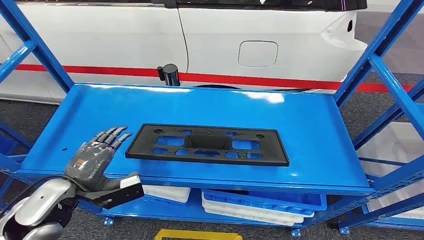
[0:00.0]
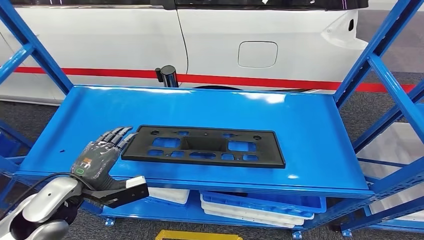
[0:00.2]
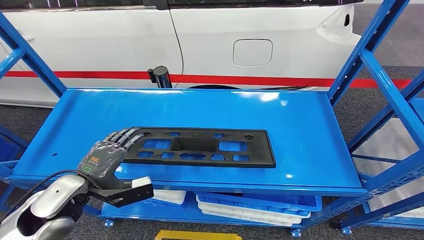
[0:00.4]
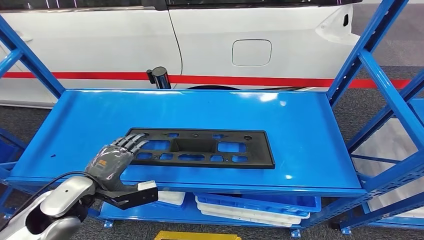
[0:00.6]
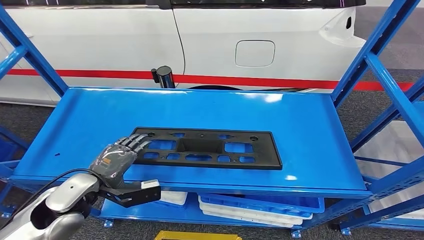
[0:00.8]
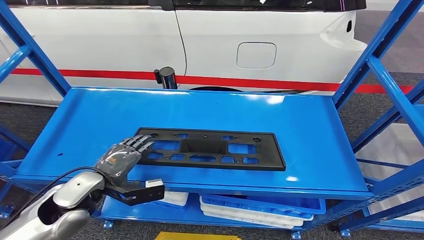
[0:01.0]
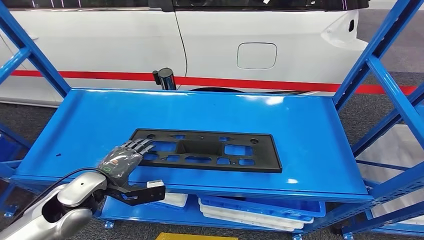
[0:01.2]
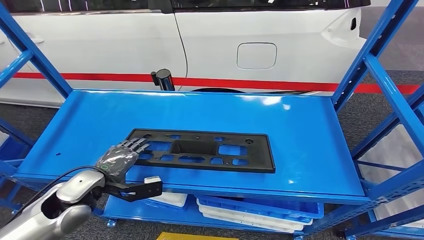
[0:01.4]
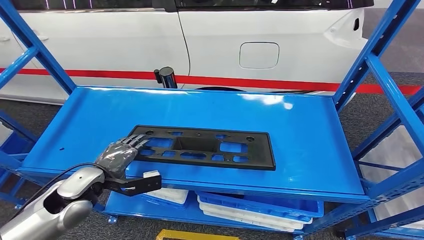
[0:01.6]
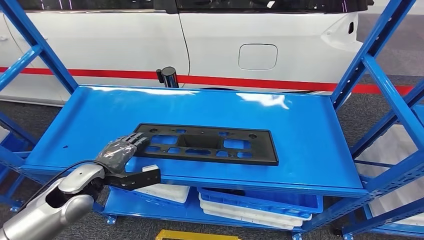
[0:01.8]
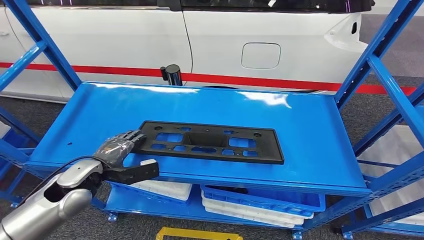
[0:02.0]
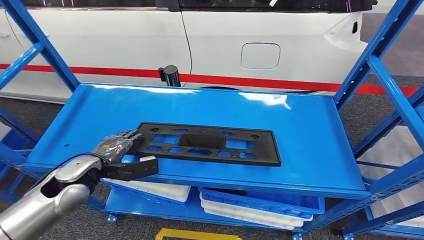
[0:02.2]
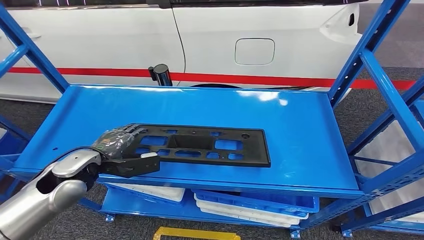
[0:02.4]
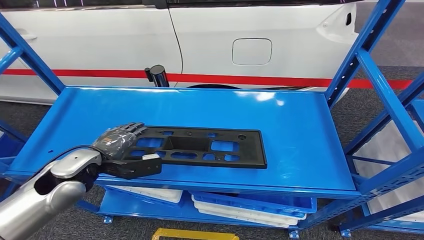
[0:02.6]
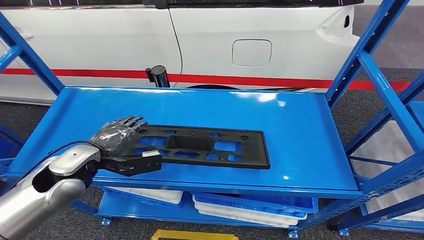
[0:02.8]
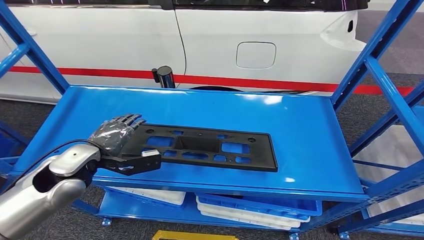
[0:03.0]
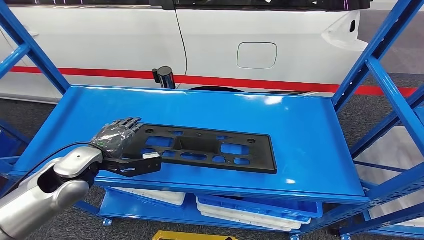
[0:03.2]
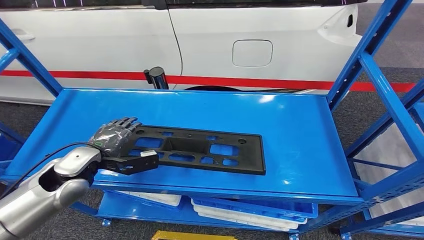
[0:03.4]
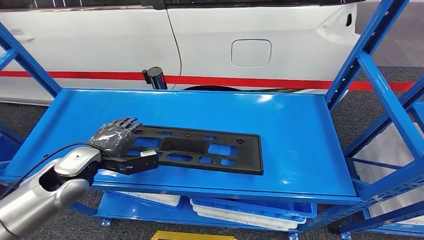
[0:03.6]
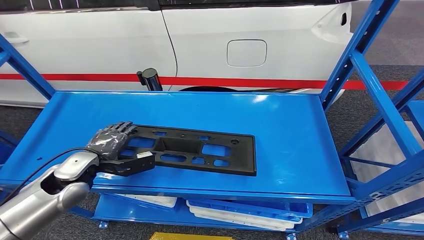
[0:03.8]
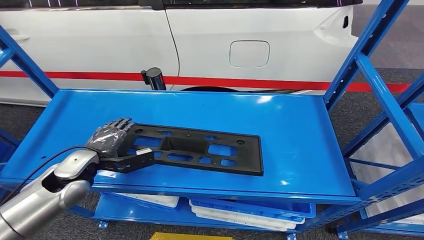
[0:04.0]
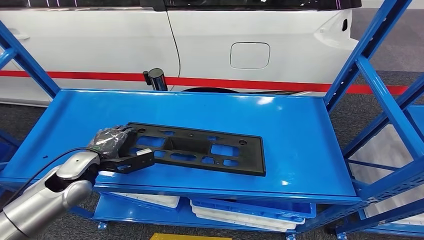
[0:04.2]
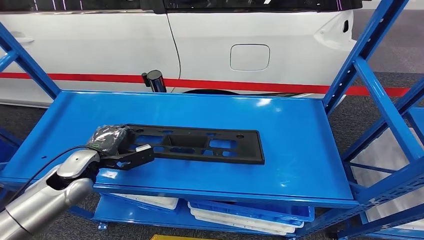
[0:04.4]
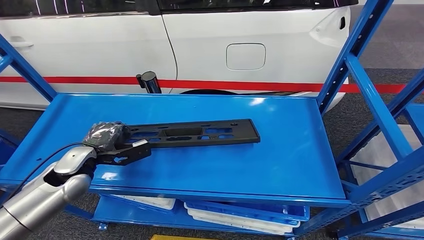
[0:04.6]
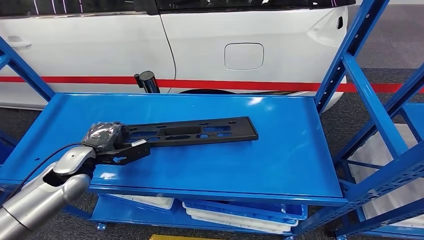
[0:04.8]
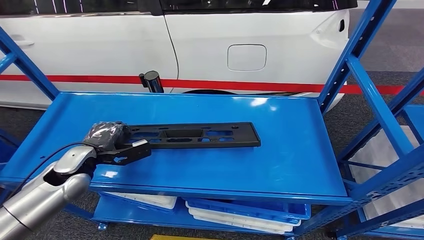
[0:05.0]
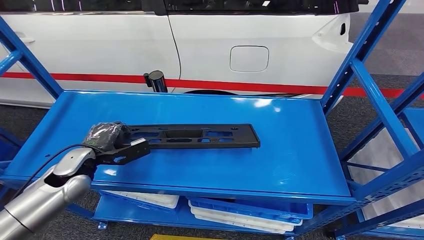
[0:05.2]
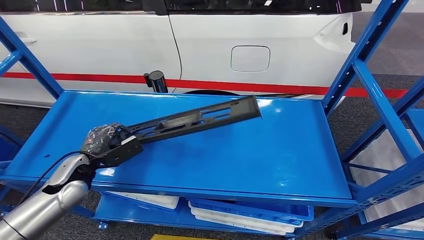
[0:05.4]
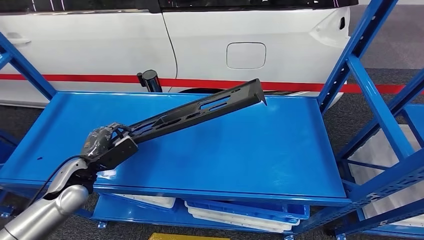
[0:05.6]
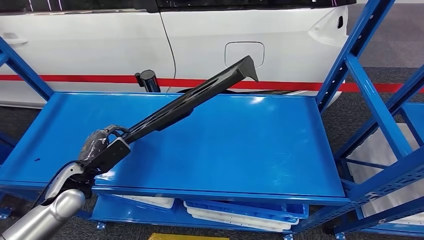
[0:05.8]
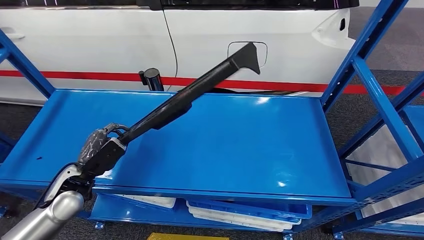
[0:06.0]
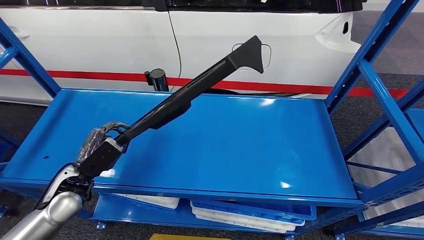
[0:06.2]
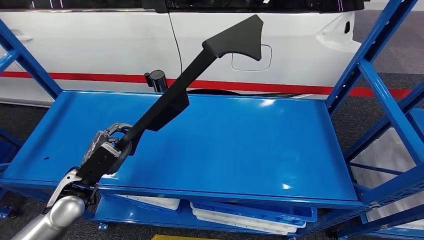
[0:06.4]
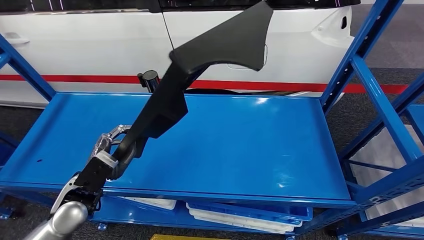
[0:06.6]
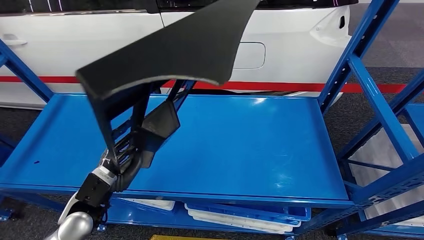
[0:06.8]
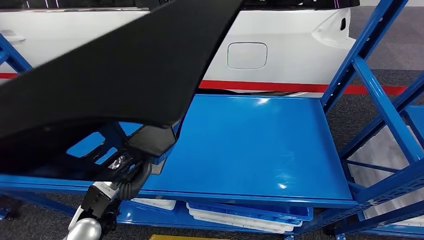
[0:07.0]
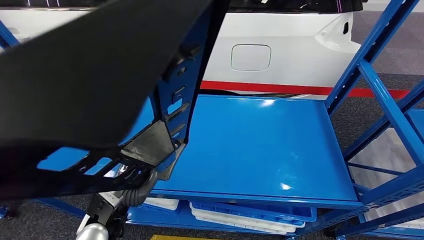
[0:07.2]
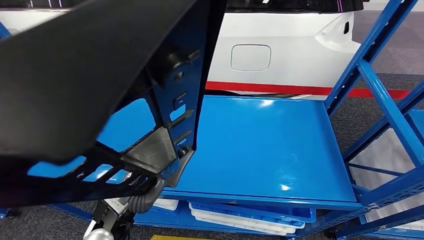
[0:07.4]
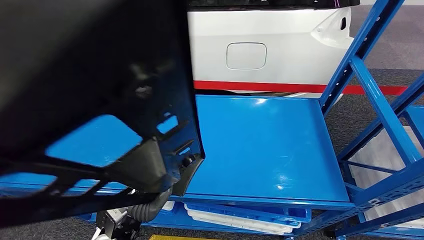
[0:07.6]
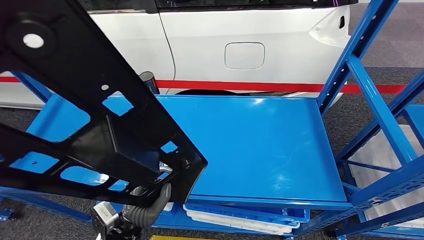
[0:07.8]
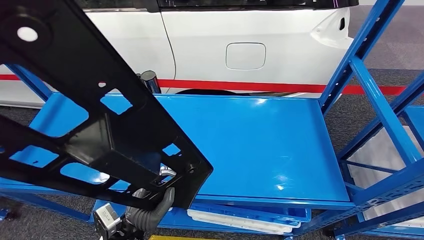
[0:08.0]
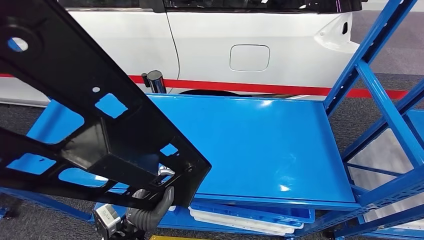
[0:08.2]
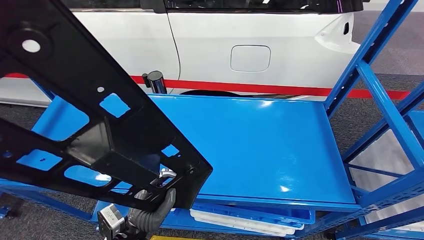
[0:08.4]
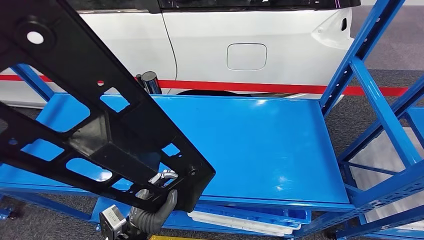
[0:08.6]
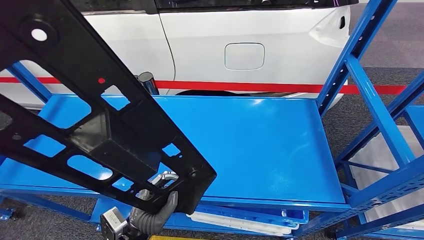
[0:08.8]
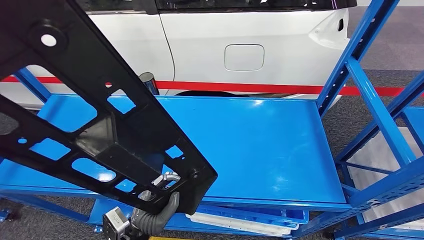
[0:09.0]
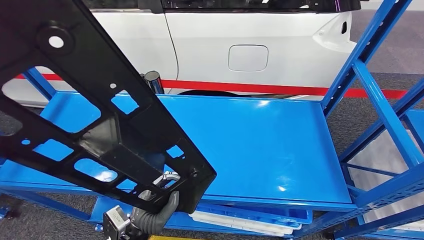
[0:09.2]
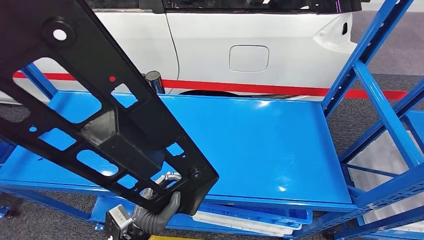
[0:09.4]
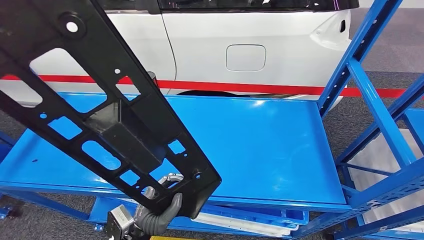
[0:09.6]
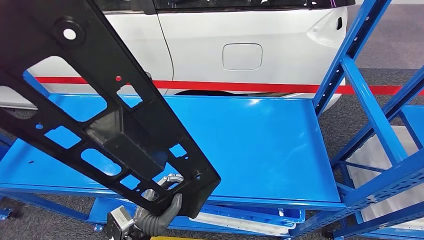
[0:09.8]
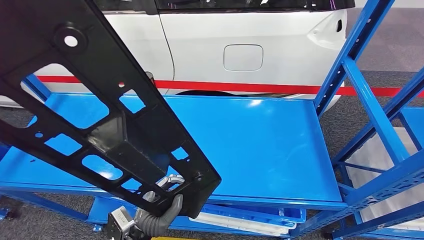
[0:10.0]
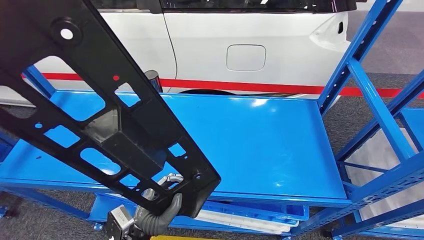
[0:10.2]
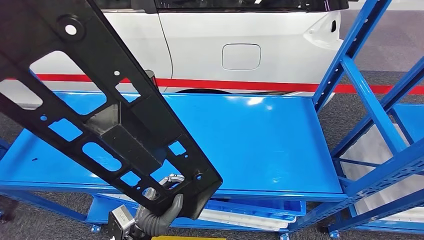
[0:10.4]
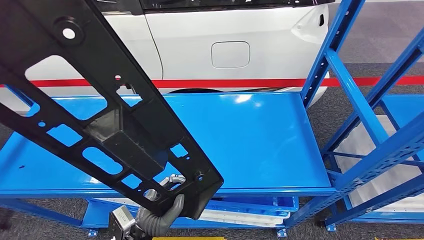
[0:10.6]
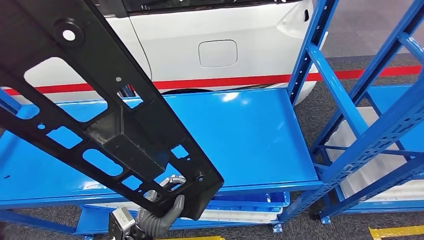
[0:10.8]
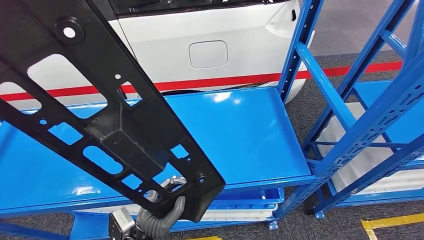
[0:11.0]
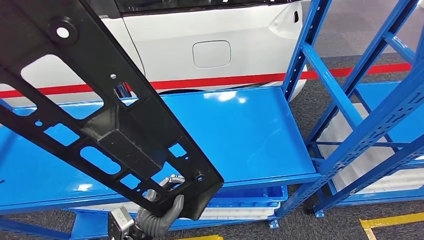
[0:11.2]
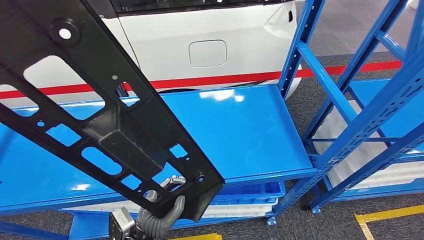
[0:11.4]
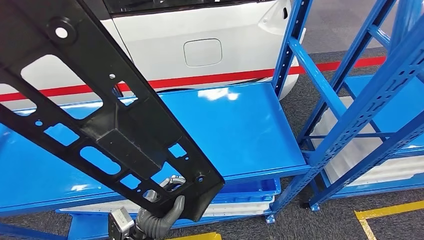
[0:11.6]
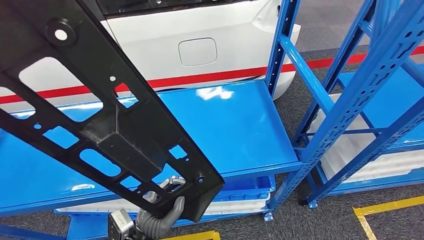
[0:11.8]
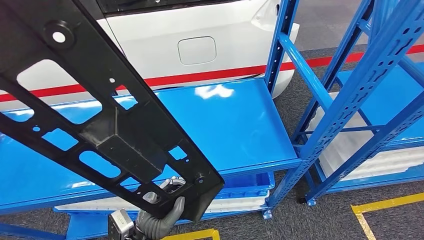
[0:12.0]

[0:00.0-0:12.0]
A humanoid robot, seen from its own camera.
Step, 0:00.0 to 0:11.4: Pick up the large material from the shelf.

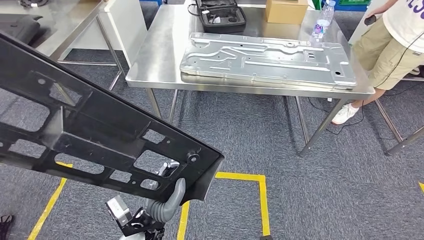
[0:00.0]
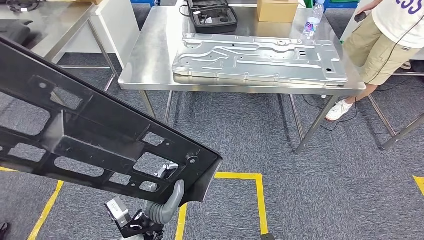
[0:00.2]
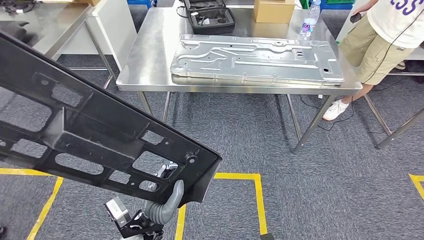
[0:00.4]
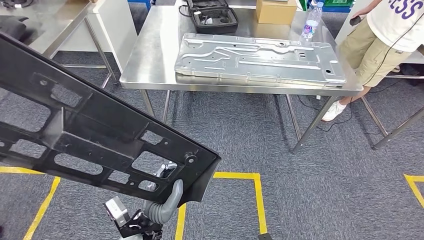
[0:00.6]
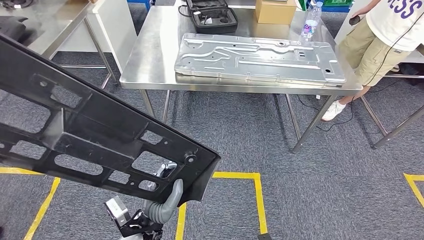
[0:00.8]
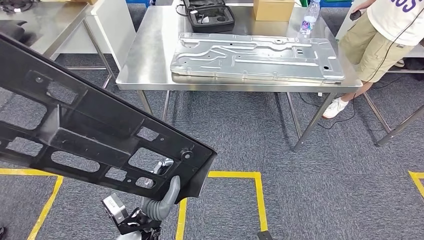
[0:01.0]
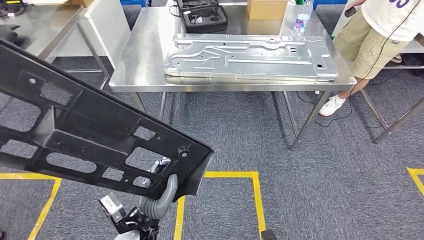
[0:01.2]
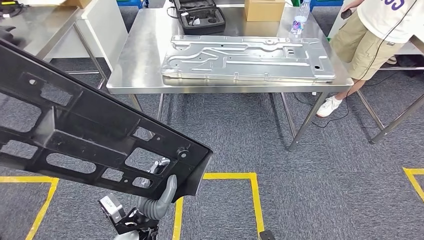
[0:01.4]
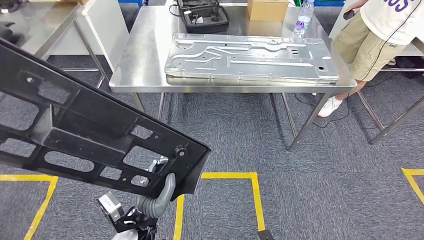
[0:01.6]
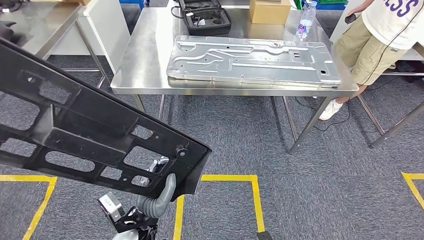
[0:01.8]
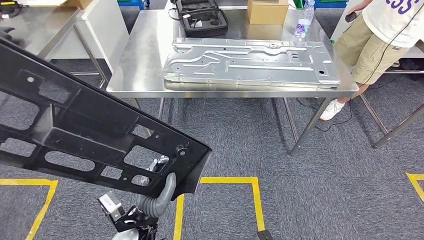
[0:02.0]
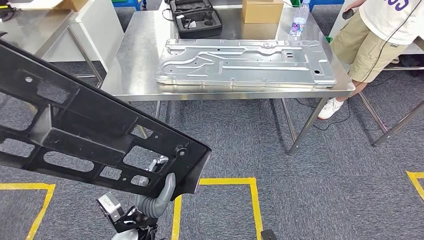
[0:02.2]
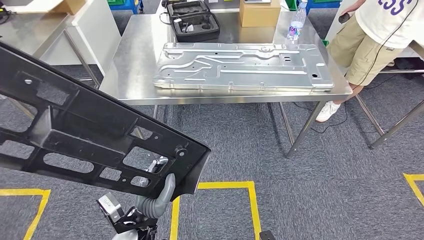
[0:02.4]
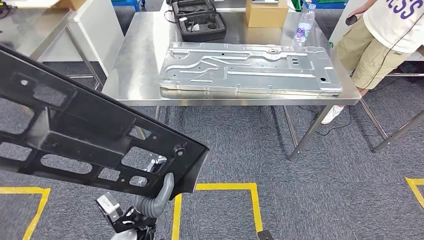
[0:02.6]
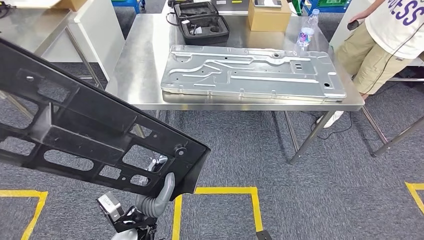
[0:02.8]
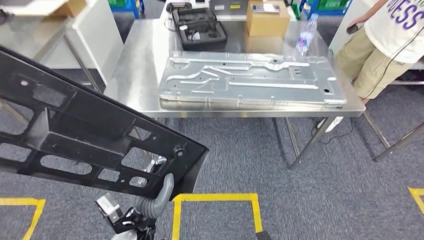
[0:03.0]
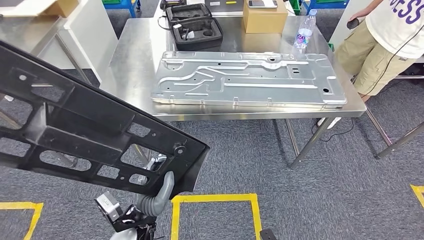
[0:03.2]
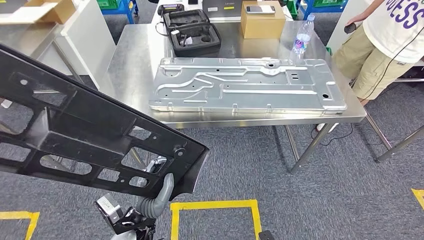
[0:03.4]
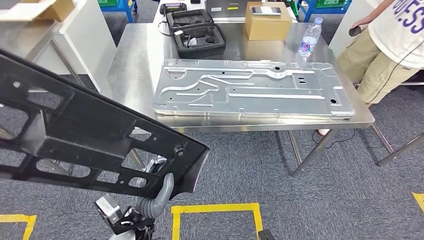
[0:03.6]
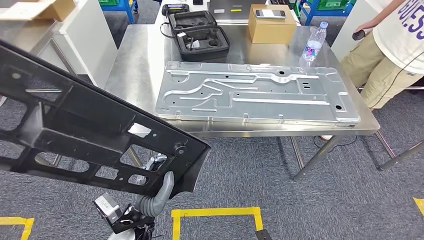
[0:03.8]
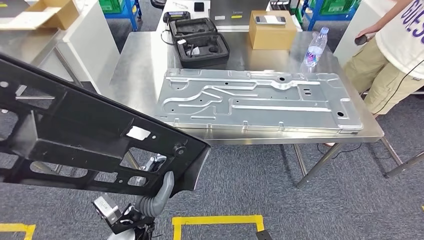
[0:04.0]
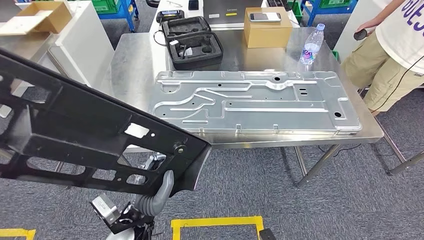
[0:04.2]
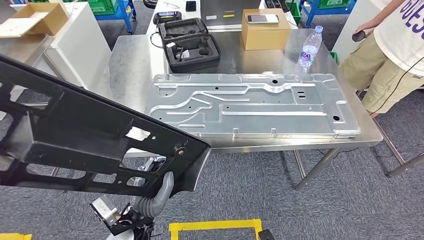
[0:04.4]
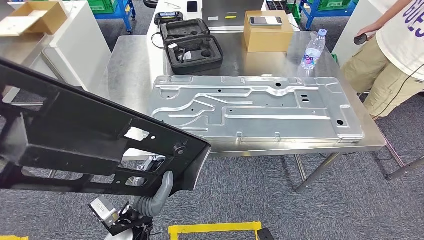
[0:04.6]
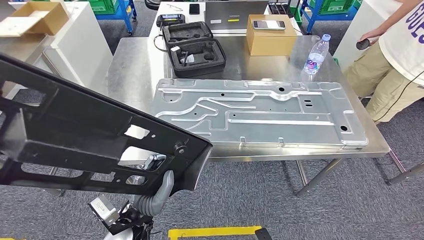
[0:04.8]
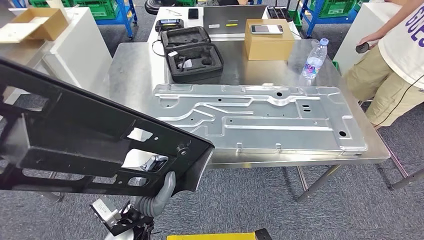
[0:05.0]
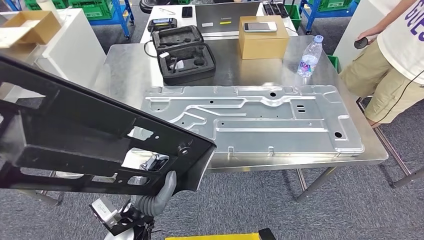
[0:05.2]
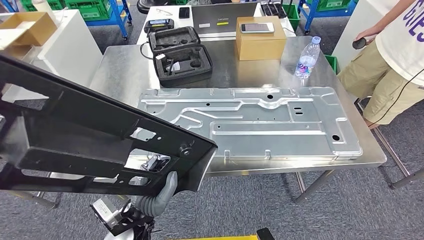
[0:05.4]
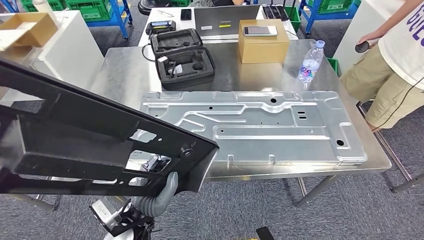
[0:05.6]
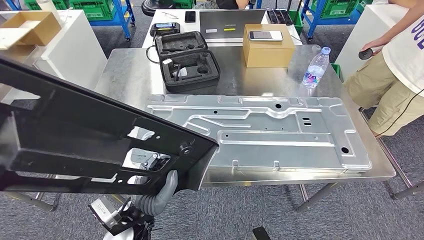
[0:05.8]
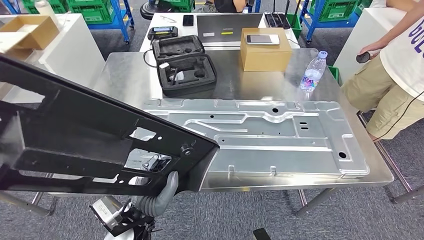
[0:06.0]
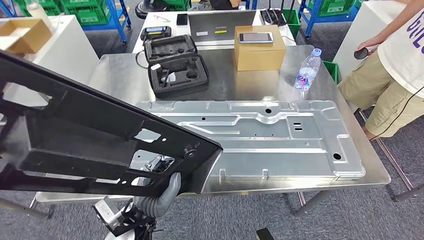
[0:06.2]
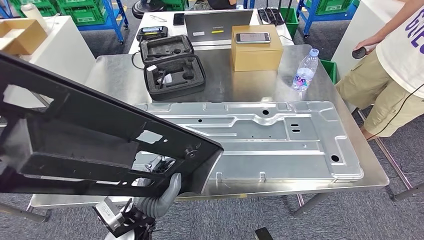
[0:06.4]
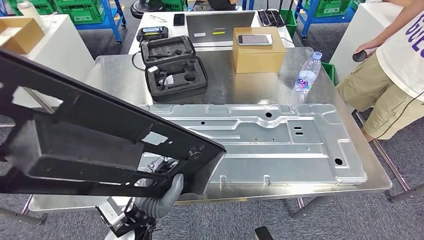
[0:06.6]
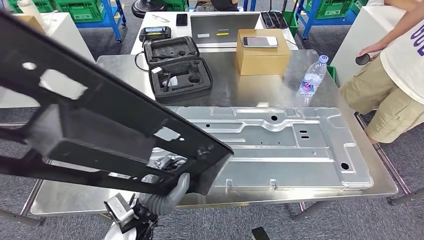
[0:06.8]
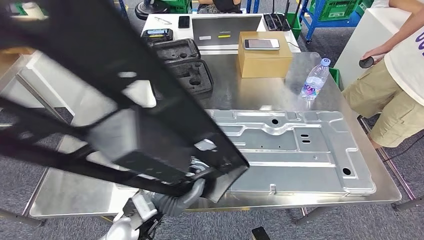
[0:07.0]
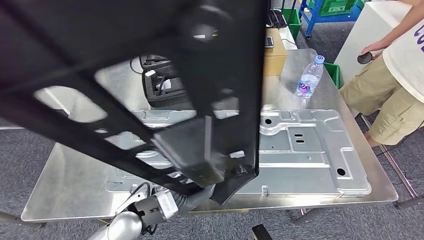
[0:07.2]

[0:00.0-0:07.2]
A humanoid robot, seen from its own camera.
Step, 0:00.0 to 0:03.8: Move the large material to the workbench.
